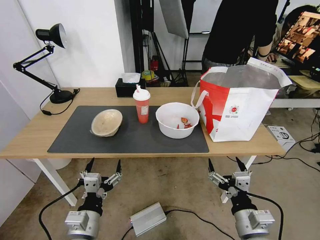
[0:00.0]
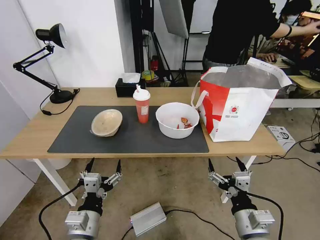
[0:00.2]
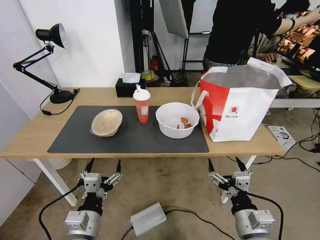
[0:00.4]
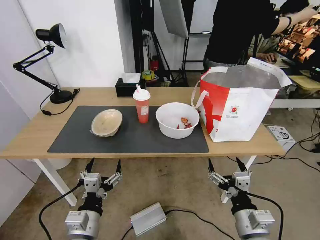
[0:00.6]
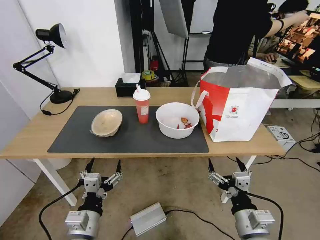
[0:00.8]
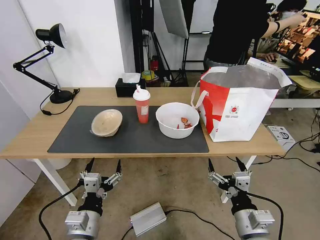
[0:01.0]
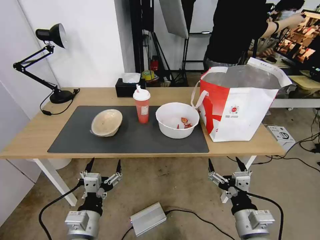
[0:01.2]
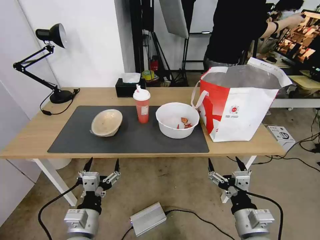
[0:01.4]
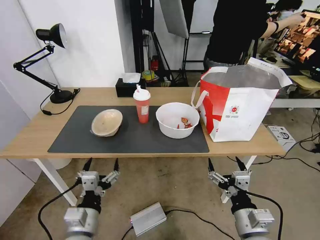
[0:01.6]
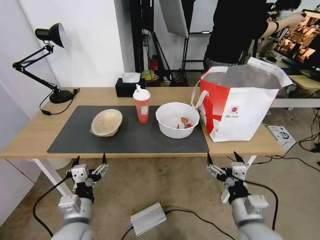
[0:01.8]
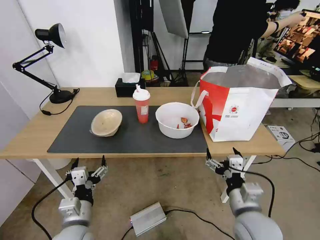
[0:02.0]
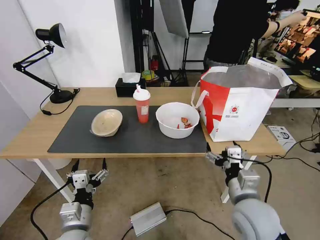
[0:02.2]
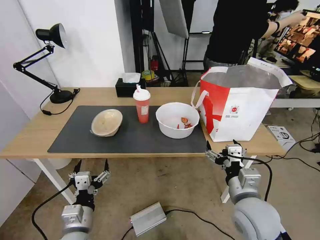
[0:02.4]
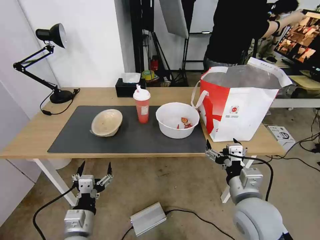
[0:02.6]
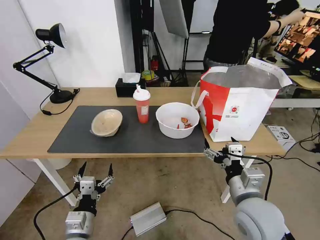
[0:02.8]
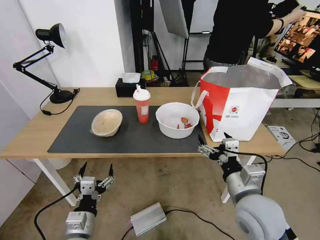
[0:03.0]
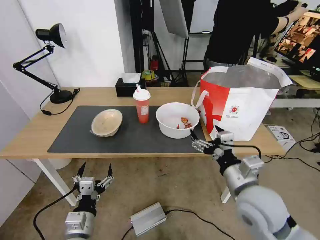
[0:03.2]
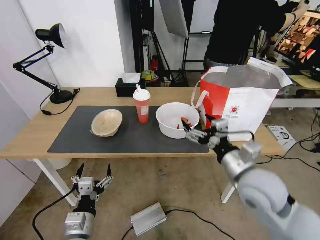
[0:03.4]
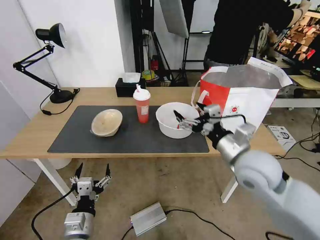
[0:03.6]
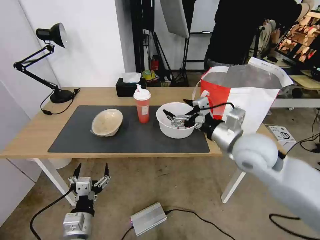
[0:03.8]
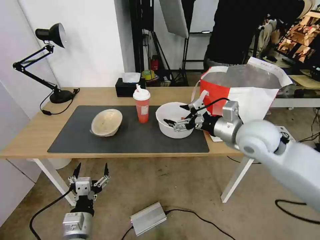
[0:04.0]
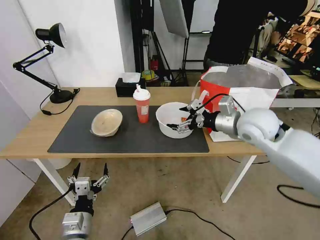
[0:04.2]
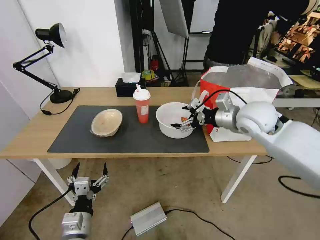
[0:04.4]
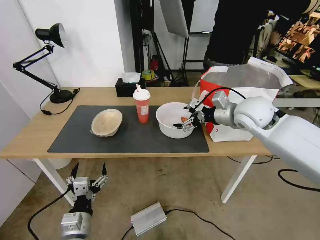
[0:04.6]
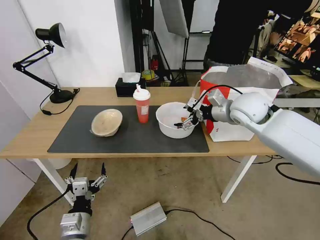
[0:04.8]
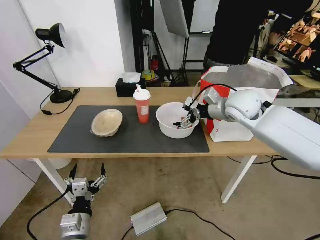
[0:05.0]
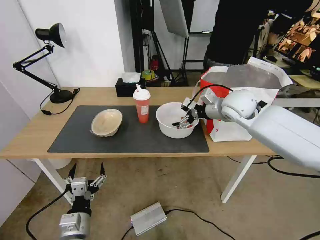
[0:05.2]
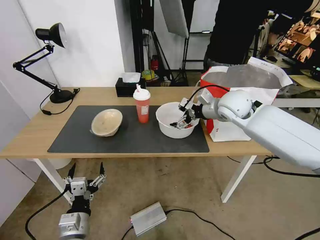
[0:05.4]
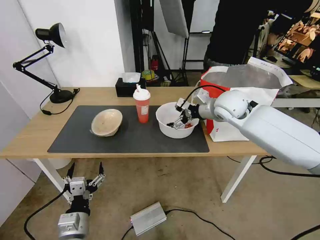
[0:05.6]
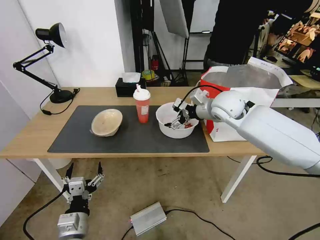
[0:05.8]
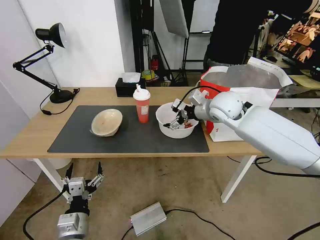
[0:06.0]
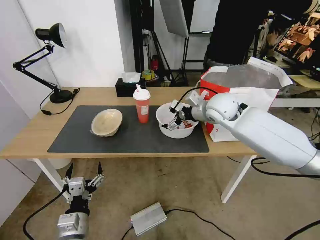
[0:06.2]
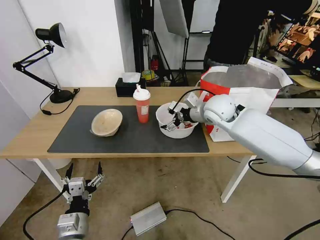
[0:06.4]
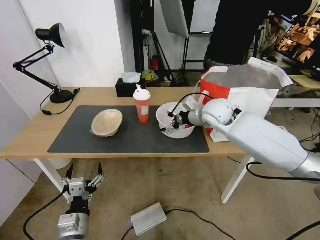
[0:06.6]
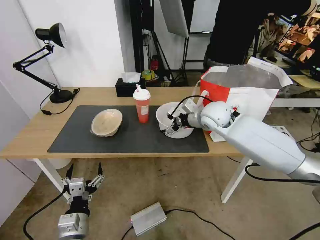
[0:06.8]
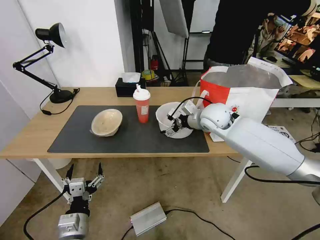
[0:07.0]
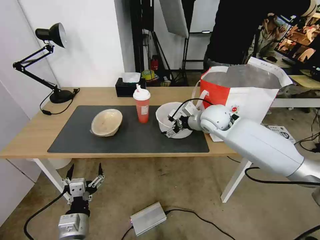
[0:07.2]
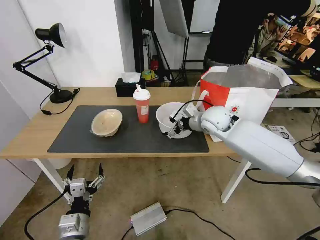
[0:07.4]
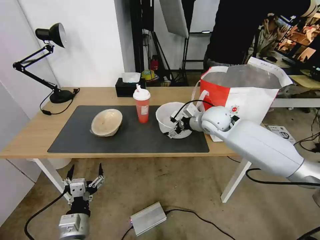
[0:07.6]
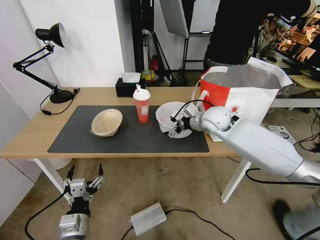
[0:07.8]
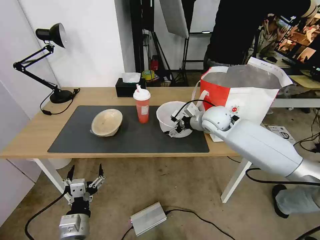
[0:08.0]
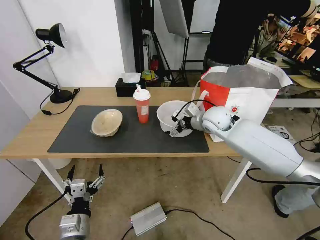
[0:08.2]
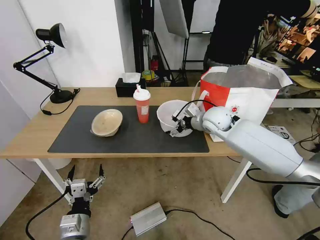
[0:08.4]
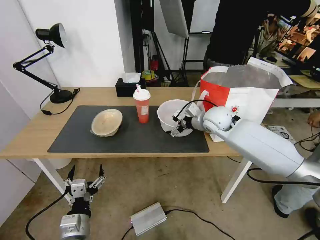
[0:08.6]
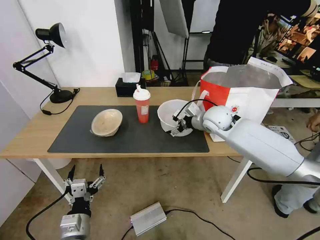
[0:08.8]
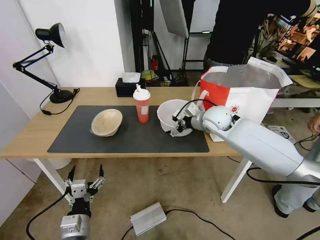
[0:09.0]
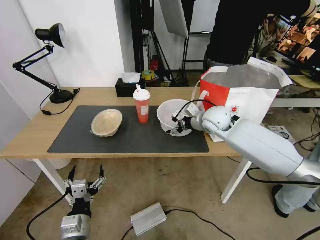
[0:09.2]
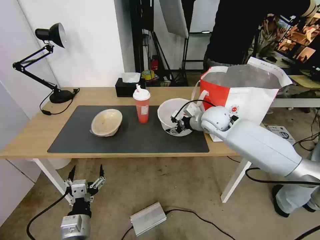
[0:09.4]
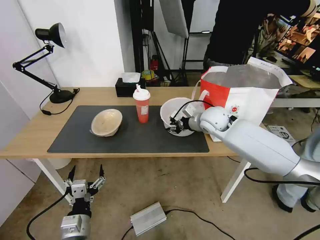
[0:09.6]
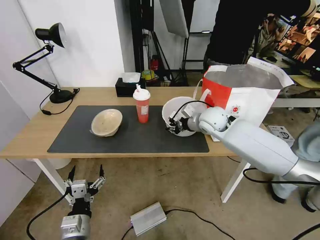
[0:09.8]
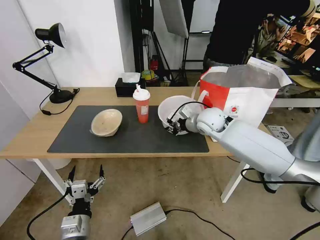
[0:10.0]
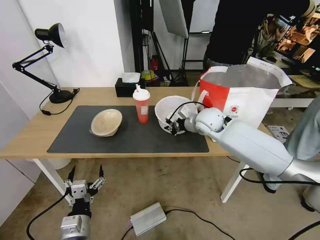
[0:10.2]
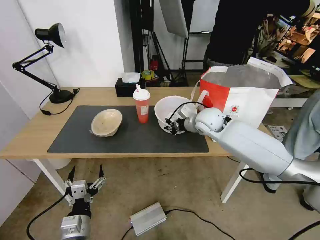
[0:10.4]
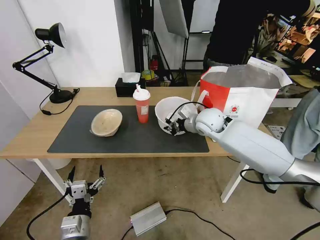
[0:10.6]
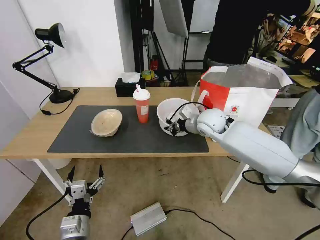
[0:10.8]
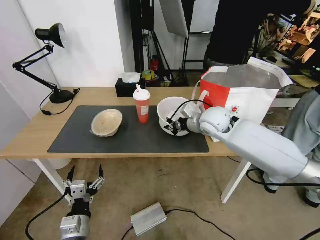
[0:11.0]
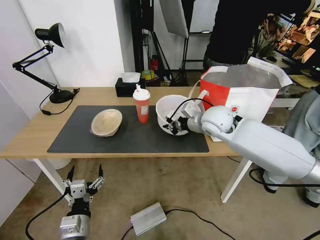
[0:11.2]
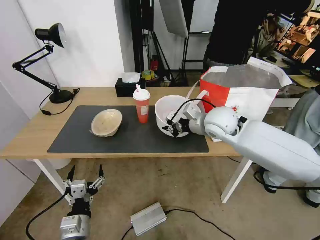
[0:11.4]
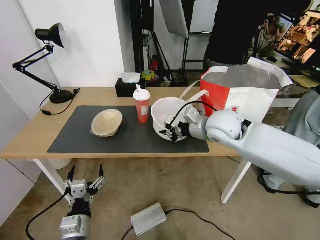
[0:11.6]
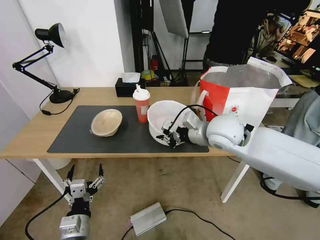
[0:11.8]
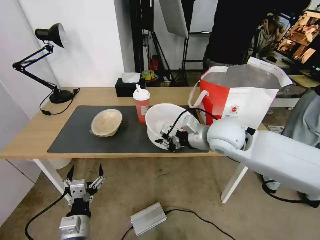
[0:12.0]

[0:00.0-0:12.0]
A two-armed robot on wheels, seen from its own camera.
Task of the whole recording: Pick up the trash from the table and place it into the takeout bag.
0:01.6 to 0:03.0: The right gripper moves upward and forward, some 10 cm.
0:03.0 to 0:04.4: The right gripper heads forward and upward, covering approximately 25 cm.
0:04.4 to 0:06.0: The right gripper is displaced forward and to the left by roughly 10 cm.
0:06.0 to 0:07.6: The right gripper is displaced downward by roughly 5 cm.
0:07.6 to 0:09.0: The two grippers keep their place.
0:09.0 to 0:10.4: The right gripper closes up.
0:10.4 to 0:12.0: The right gripper travels backward and upward by some 15 cm.

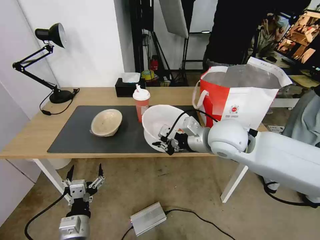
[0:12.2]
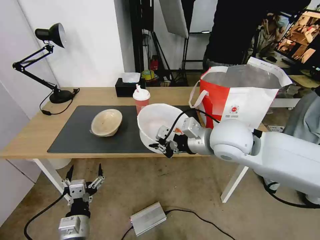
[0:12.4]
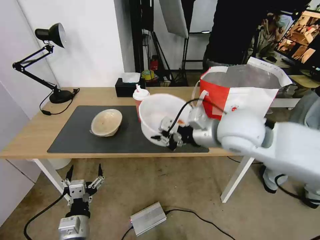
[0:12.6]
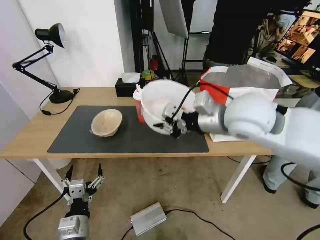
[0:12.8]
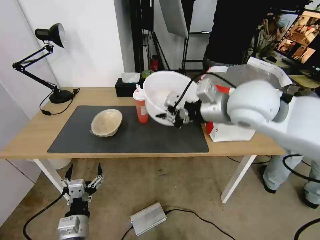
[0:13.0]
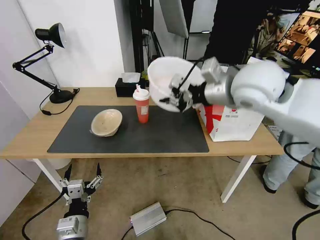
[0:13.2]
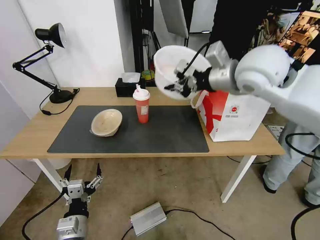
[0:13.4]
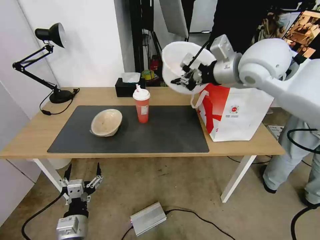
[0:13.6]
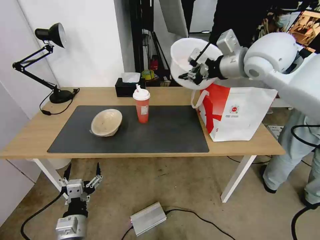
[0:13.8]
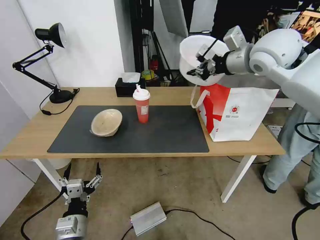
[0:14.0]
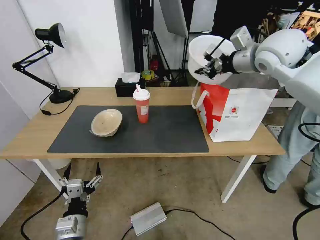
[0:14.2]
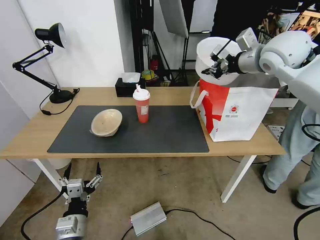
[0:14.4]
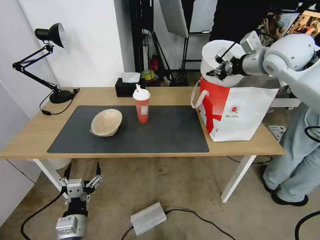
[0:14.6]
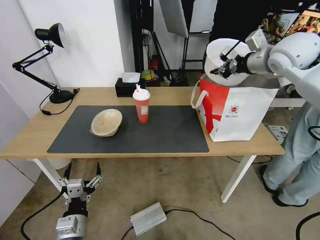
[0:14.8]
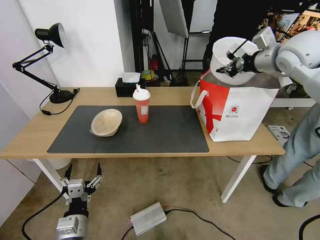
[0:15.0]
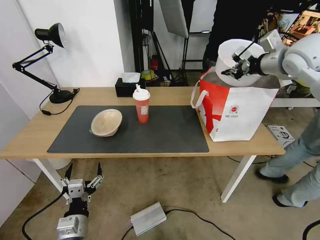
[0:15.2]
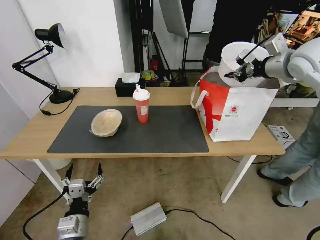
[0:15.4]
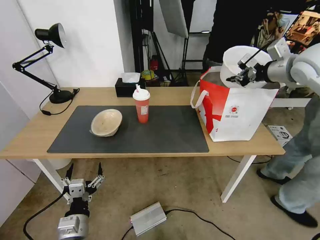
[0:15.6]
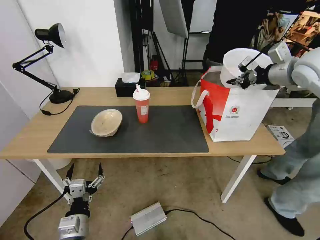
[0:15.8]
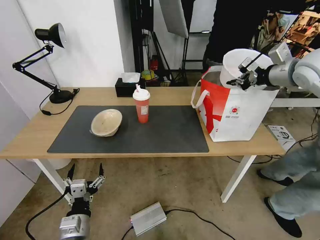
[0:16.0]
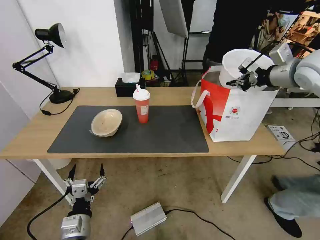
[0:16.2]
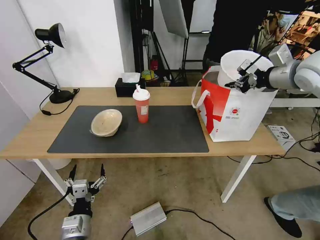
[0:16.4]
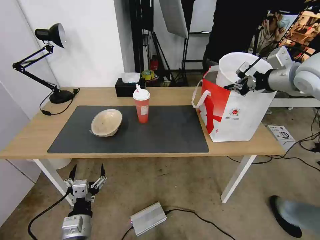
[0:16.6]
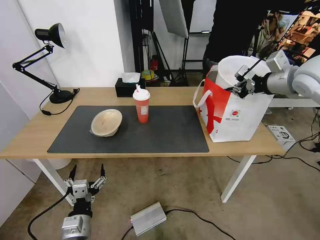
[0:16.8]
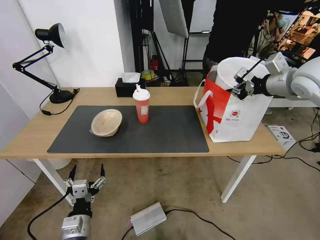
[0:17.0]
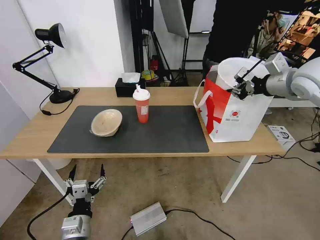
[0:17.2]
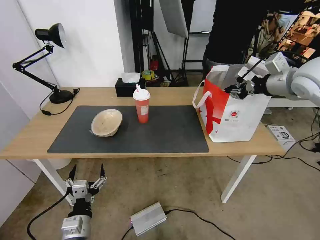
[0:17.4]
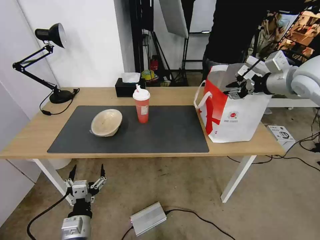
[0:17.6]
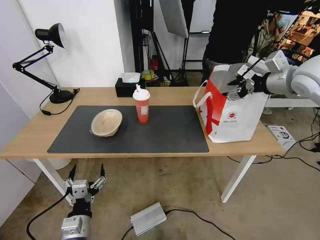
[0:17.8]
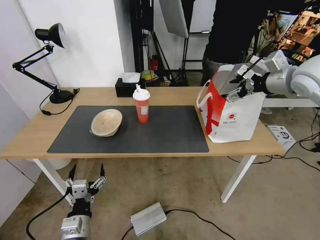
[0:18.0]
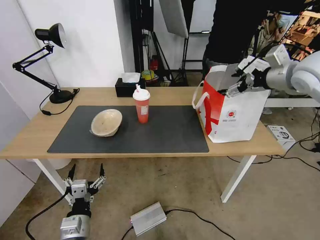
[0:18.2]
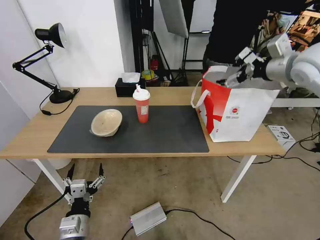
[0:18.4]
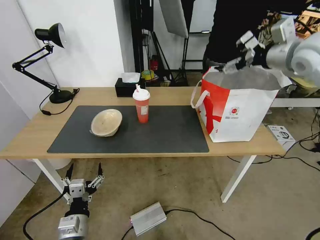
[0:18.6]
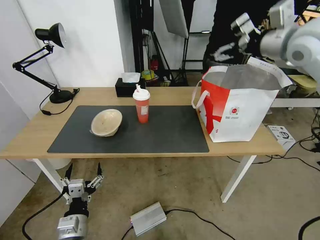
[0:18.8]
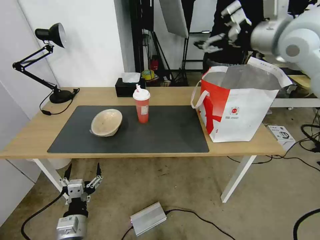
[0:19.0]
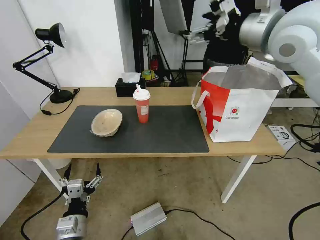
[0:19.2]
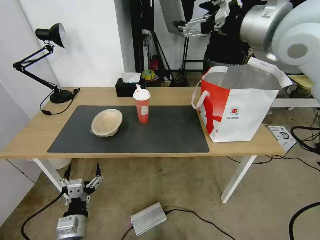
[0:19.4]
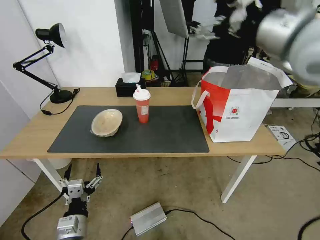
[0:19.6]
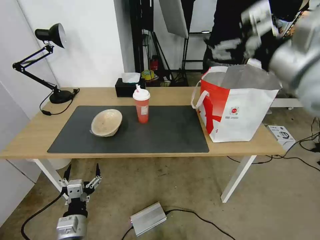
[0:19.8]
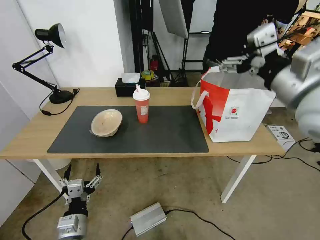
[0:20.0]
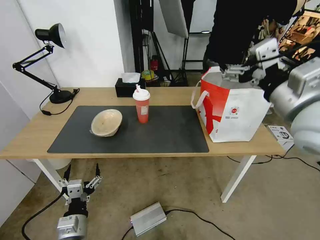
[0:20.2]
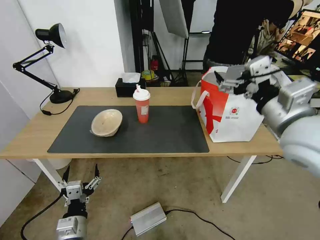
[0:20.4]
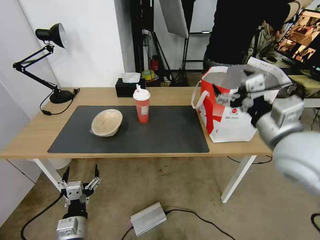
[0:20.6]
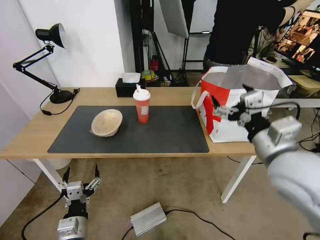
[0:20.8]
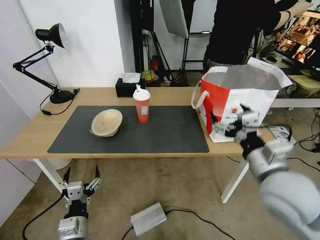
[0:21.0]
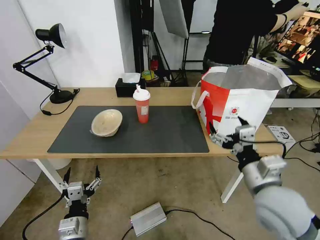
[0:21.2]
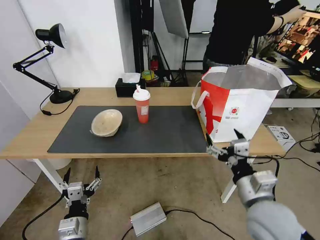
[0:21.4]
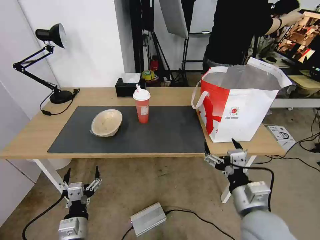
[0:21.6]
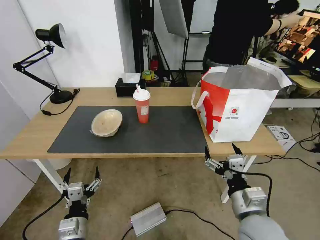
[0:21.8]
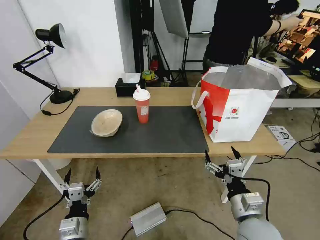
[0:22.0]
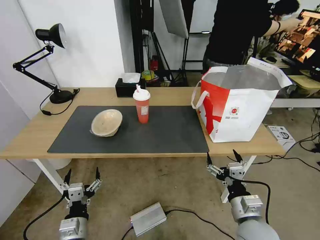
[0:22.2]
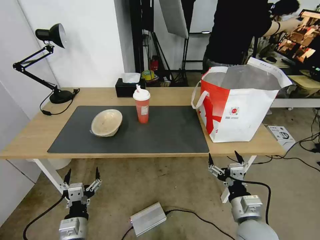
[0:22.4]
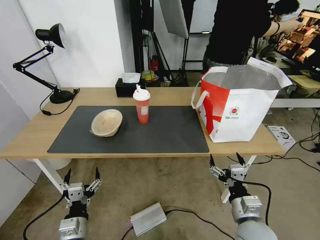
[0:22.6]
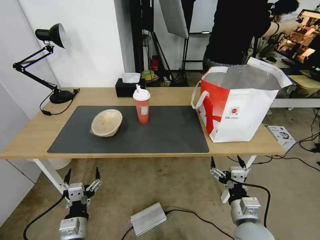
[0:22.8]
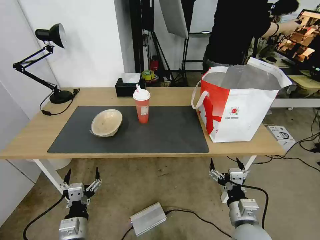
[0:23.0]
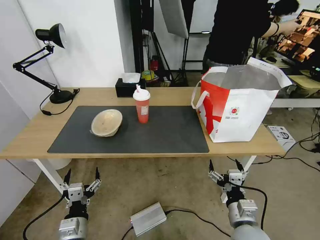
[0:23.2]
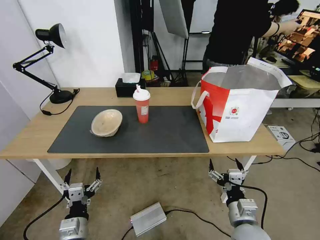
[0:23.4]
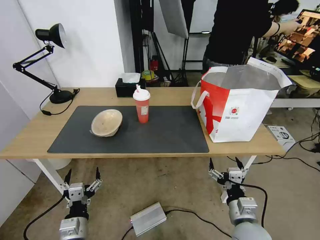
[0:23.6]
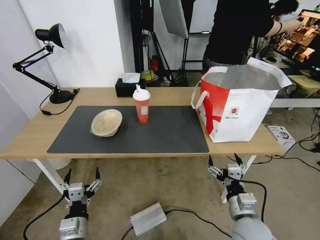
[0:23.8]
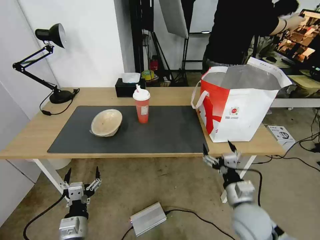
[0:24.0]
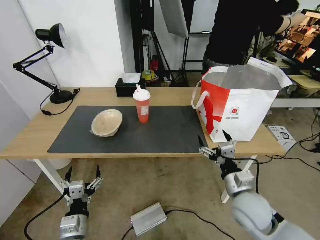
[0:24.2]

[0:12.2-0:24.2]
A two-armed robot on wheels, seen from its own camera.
Task of the whole recording: Pick up the trash from the table and place it into the takeout bag.
0:12.2 to 0:13.8: The right gripper moves upward, forward and to the right, some 20 cm.
0:13.8 to 0:15.2: The right gripper shifts about 15 cm to the right.
0:15.2 to 0:16.6: The right gripper travels backward by about 5 cm.
0:16.6 to 0:18.2: The right gripper opens up.
0:18.2 to 0:19.8: The right gripper travels backward and to the left by some 15 cm.
0:19.8 to 0:21.2: The right gripper is displaced downward and backward by about 25 cm.
0:21.2 to 0:22.6: The right gripper moves downward, about 15 cm.
0:22.6 to 0:24.2: The right gripper is displaced forward by roughly 5 cm.
